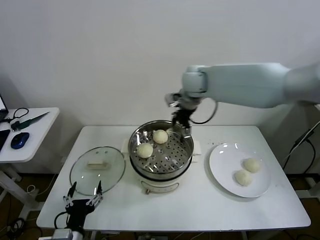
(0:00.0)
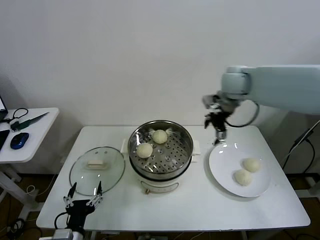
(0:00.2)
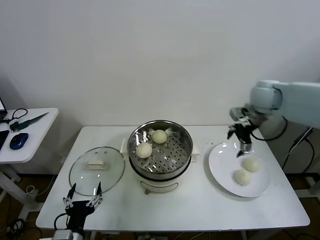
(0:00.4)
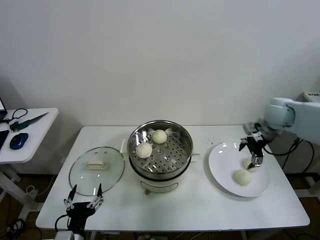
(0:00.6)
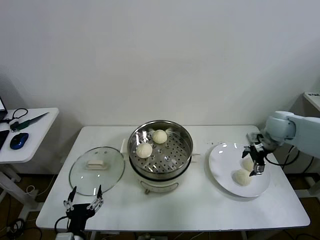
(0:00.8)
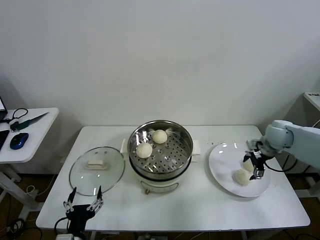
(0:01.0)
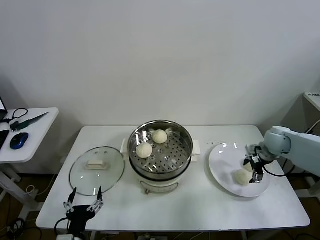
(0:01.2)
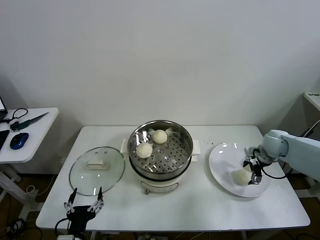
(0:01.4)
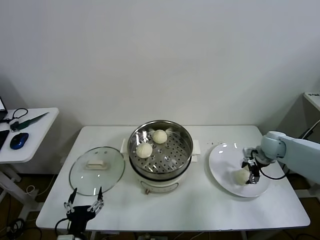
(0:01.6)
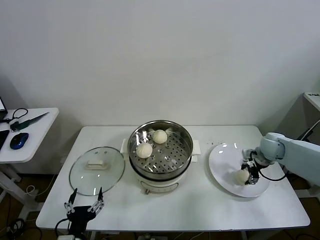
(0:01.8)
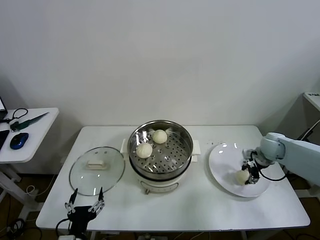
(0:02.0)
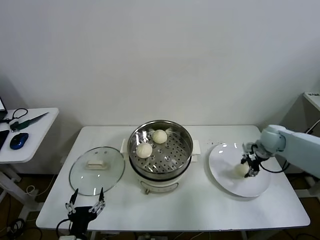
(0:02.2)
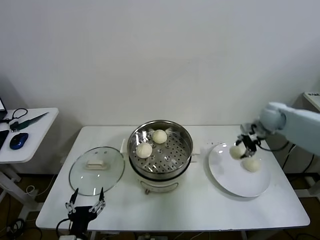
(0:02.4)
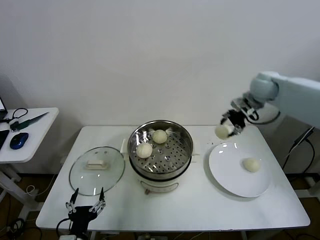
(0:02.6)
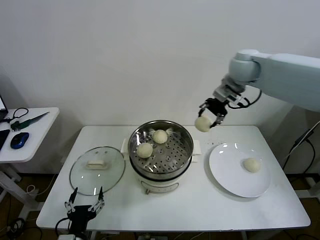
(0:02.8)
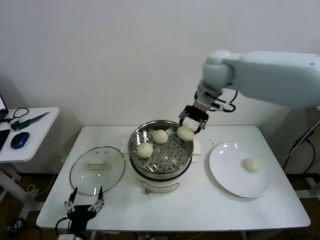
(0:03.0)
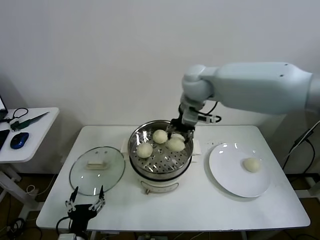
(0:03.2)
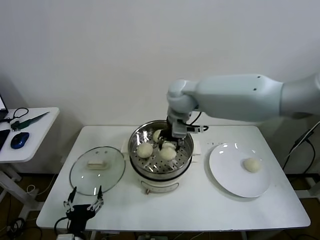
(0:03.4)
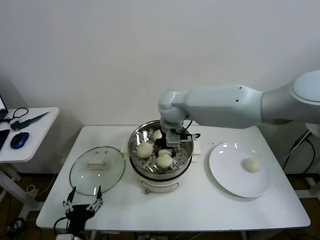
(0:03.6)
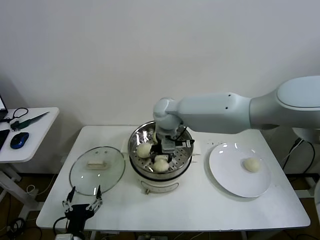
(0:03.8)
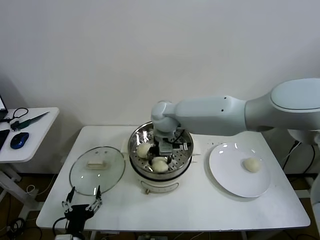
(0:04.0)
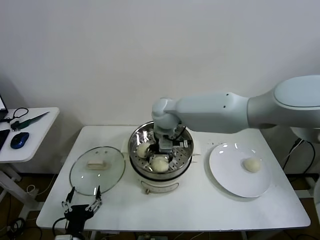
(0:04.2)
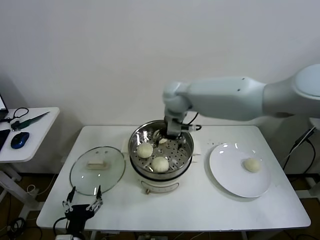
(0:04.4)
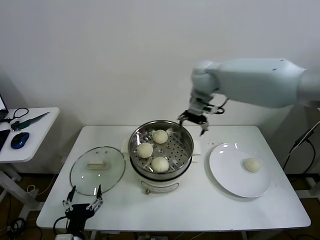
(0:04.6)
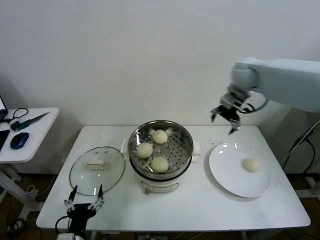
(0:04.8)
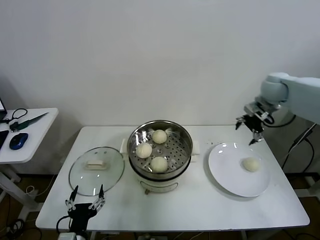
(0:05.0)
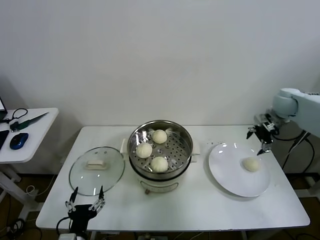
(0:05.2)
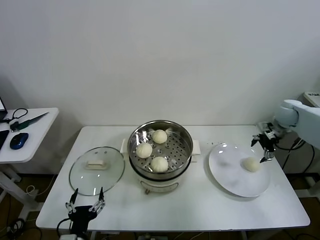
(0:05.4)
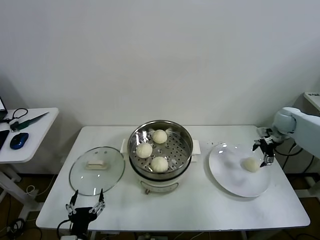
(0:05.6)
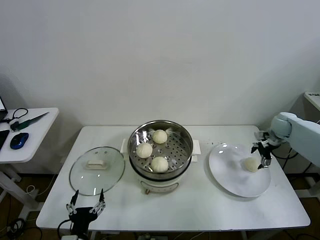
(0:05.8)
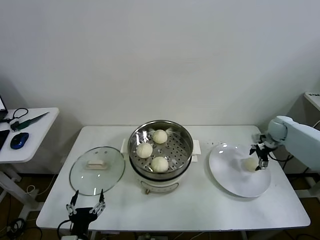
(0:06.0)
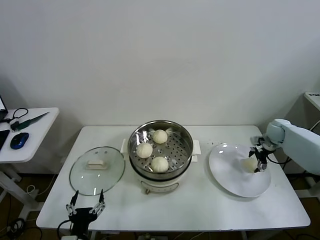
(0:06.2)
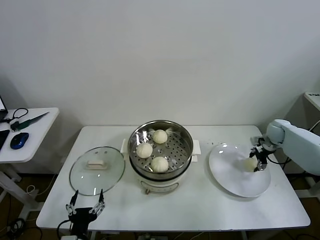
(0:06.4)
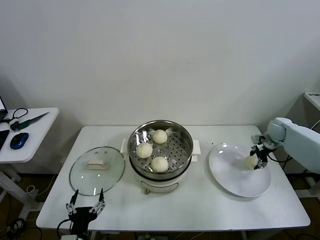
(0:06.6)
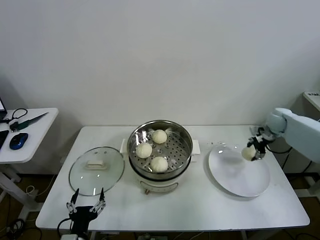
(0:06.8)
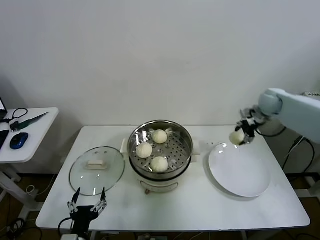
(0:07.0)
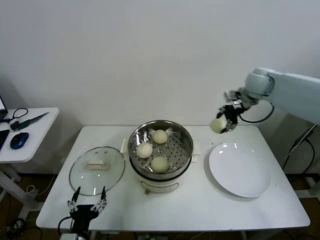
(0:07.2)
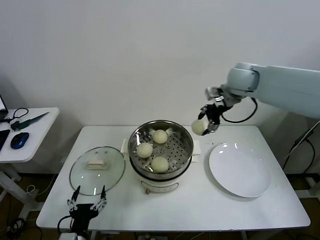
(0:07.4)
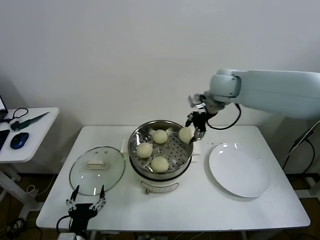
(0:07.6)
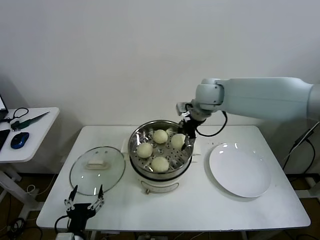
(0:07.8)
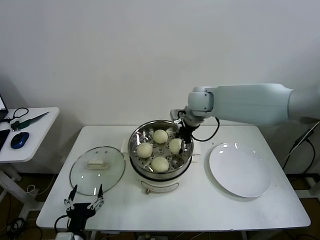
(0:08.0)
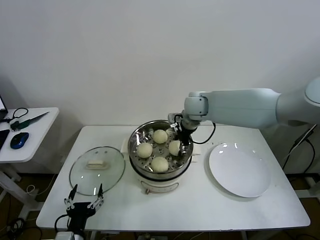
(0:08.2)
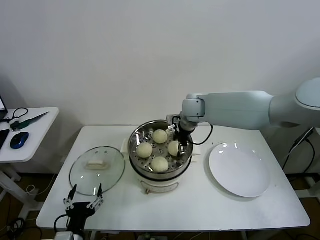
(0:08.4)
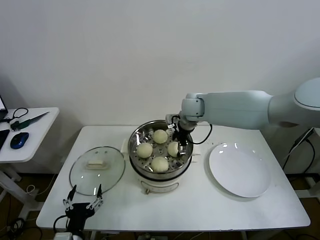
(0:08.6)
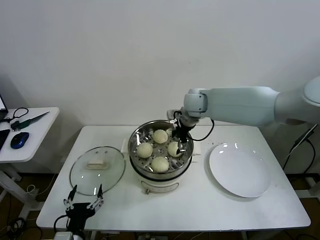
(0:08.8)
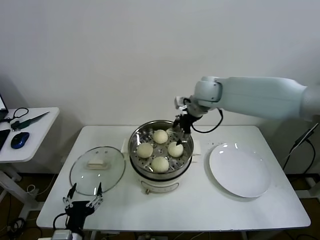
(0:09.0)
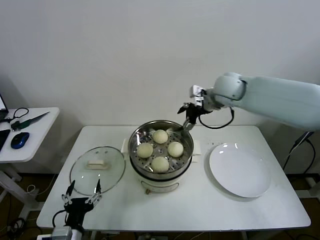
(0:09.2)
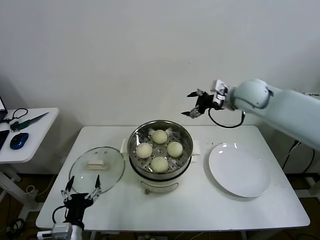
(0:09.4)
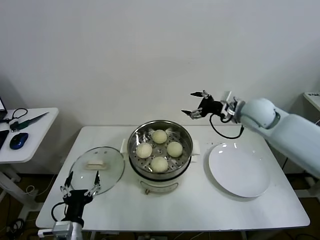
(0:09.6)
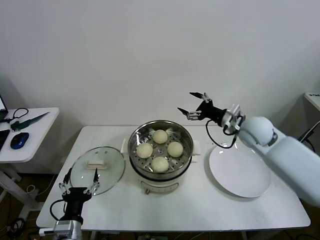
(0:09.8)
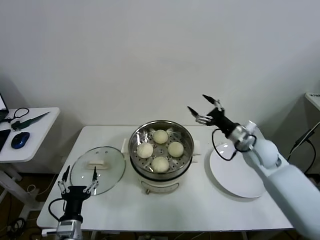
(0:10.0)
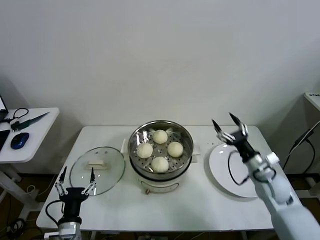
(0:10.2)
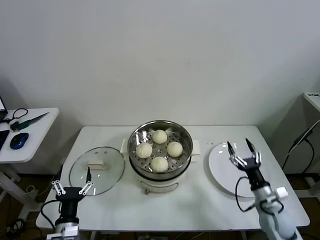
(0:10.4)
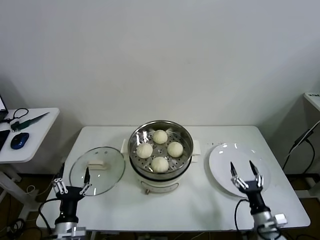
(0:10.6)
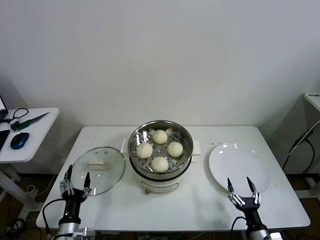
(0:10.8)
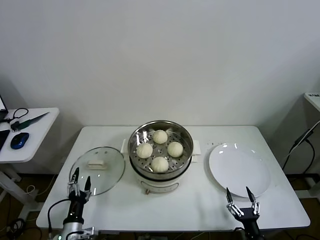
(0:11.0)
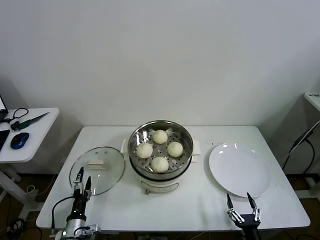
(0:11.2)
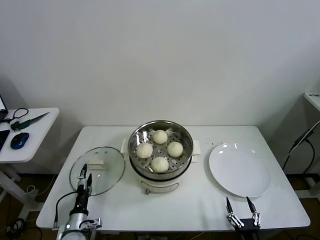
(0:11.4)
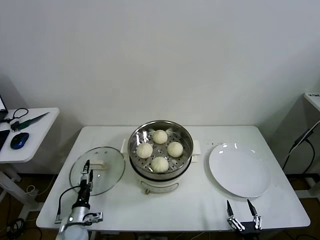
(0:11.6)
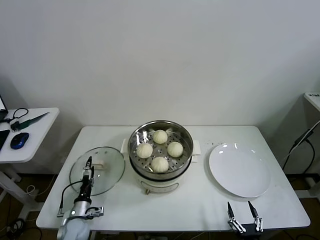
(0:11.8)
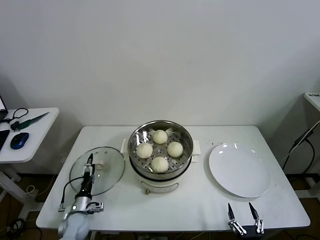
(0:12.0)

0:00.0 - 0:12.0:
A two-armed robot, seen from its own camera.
Task of the whole recording: take steamed baozi put them in steamer then cover it.
Step, 0:00.0 - 0:01.8: Grasp the baozi in the plate with right gripper.
Step, 0:02.0 - 0:04.0: Place the baozi on the steamer with right gripper.
Step, 0:04.4 - 0:06.4: Grasp the baozi in the plate with right gripper.
Step, 0:06.6 - 0:08.6: Place the baozi on the steamer with right gripper.
0:00.0 - 0:01.6: The right gripper goes roughly 35 cm to the right and downward, and closes up.
0:01.6 - 0:03.0: The right gripper is displaced upward and to the left by approximately 40 cm, and closes.
0:03.0 - 0:04.4: The right gripper moves to the left and downward, about 10 cm, and opens.
0:04.4 - 0:06.0: The right gripper goes about 50 cm to the right and downward.
0:06.0 - 0:07.6: The right gripper goes roughly 35 cm to the left and upward, and closes up.
0:07.6 - 0:09.0: The right gripper moves some 10 cm downward and comes back, and opens.
0:09.0 - 0:10.4: The right gripper shifts about 50 cm downward, backward and to the right, while the left gripper changes place by about 5 cm.
0:10.4 - 0:12.0: The right gripper heads backward and downward, covering some 25 cm, while the left gripper heads downward, forward and to the left, covering roughly 20 cm.

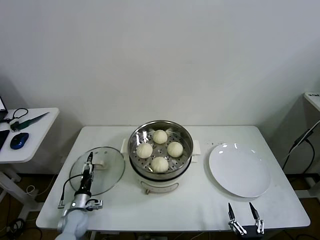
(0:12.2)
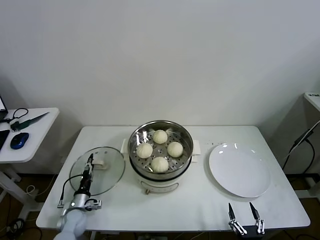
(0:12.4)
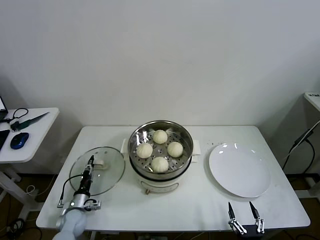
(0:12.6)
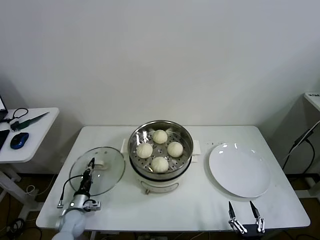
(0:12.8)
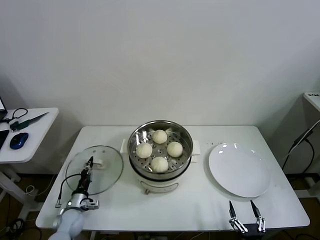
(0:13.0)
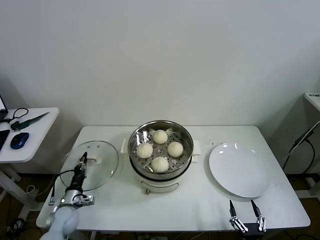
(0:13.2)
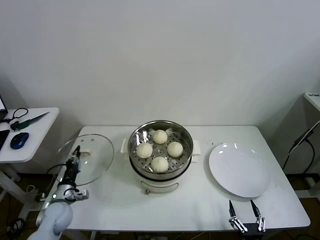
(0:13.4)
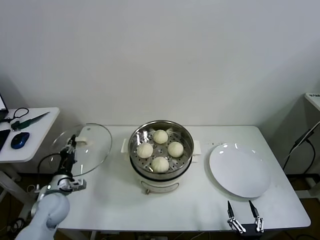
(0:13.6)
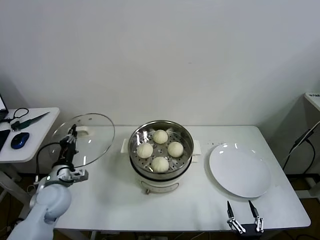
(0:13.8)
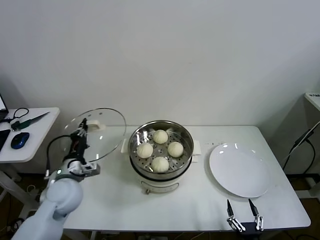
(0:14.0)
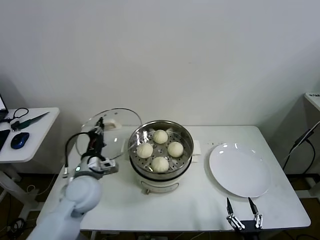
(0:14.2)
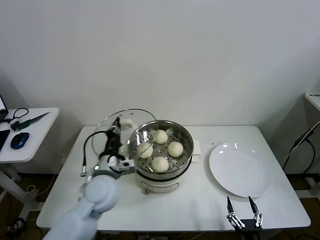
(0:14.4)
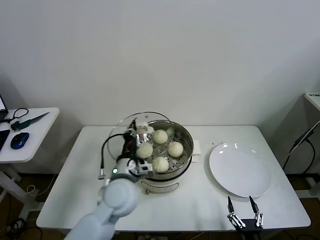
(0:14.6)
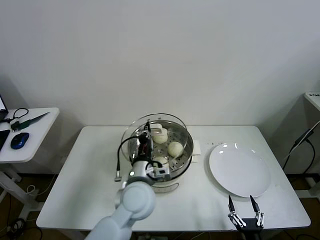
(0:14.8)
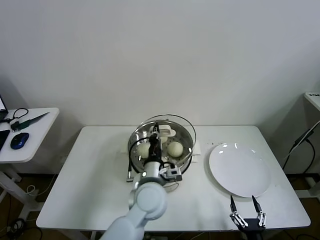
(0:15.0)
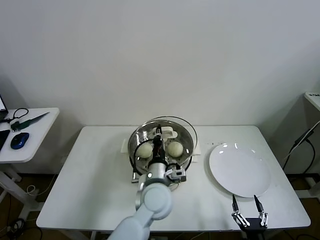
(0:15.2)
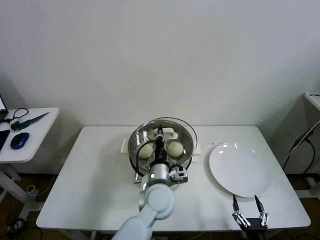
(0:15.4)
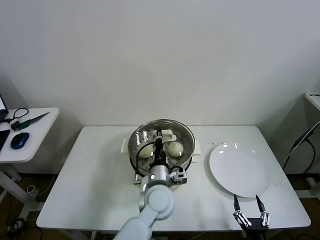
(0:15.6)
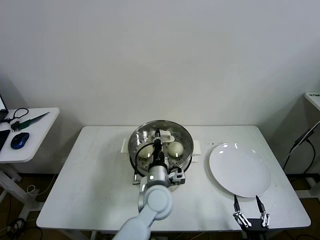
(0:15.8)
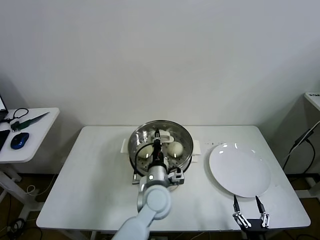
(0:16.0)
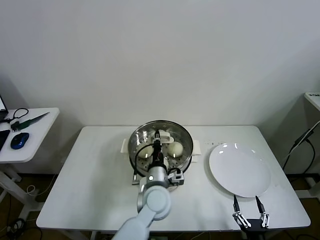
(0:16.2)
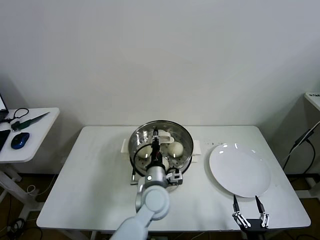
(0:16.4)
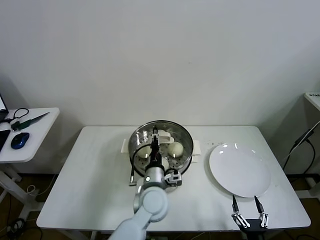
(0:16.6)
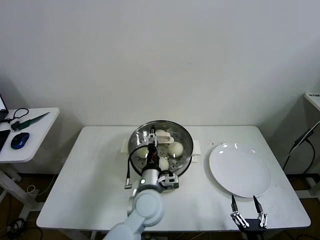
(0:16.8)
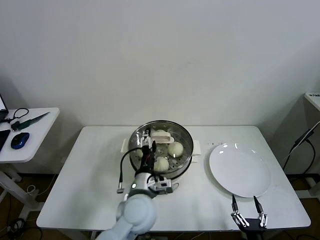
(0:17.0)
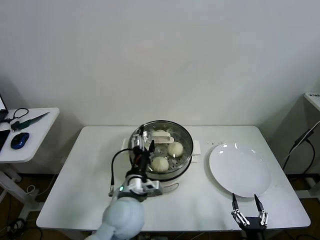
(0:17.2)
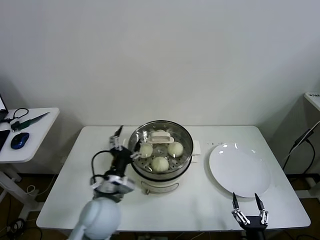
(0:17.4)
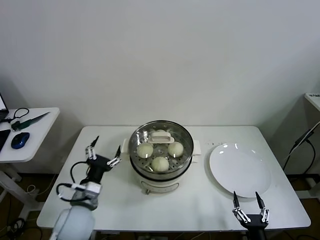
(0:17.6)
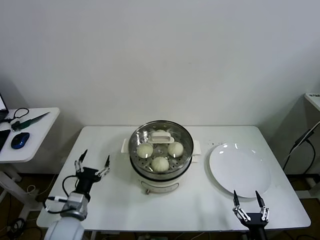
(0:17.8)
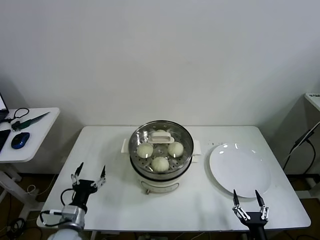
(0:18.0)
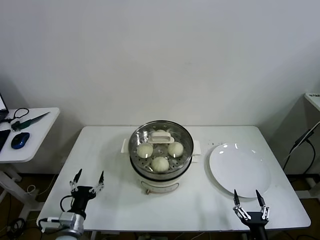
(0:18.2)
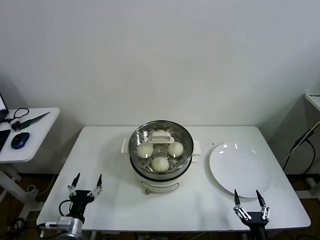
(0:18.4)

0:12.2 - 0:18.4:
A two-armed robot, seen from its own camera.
Task of the whole recording: take steamed baozi put them in steamer then cover it.
Step, 0:13.0 - 0:16.8: Place the pot lid on the steamer with left gripper.
0:12.2 - 0:13.8: The left gripper shifts approximately 20 cm upward, and closes.
0:13.8 - 0:15.4: The left gripper goes about 35 cm to the right.
0:15.4 - 0:16.8: The left gripper opens.
0:16.8 - 0:18.4: The left gripper shifts about 30 cm to the left, downward and backward.
